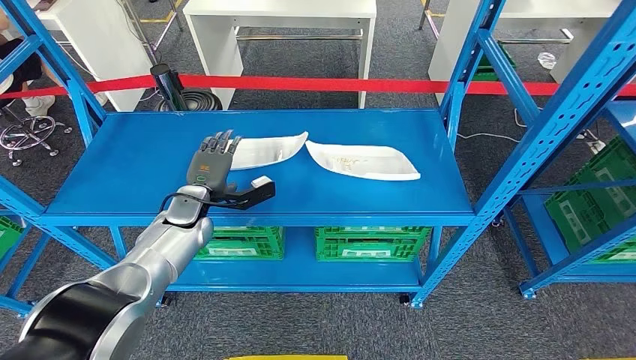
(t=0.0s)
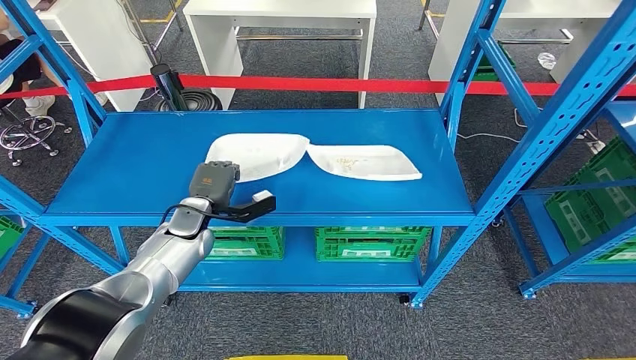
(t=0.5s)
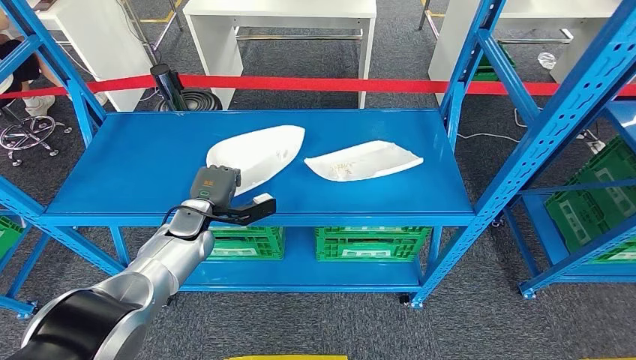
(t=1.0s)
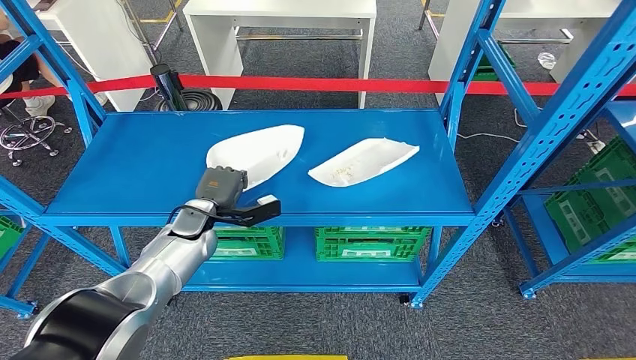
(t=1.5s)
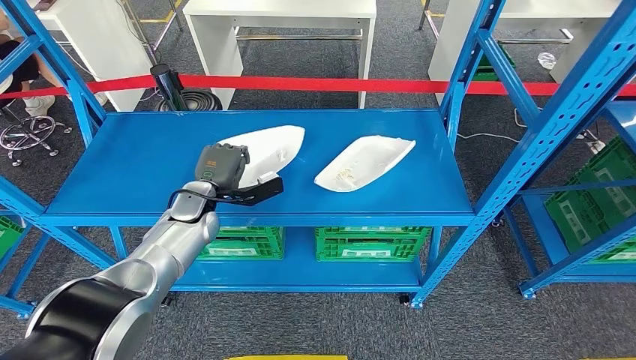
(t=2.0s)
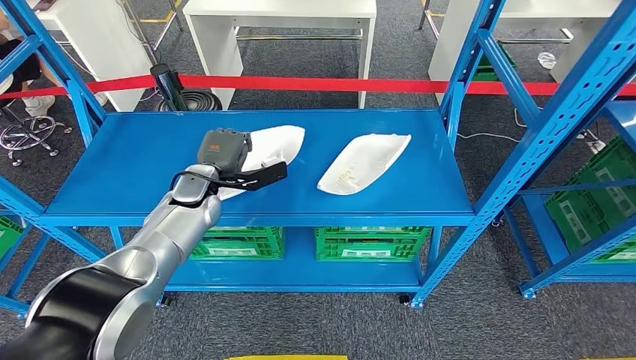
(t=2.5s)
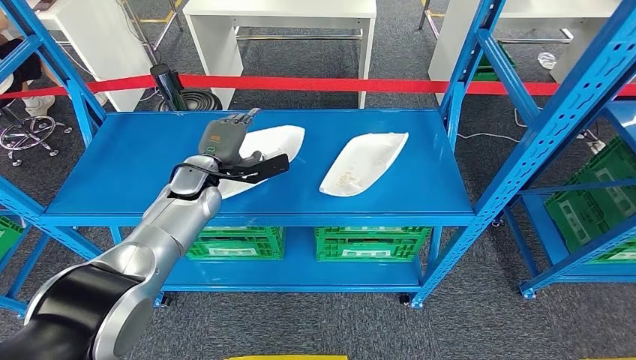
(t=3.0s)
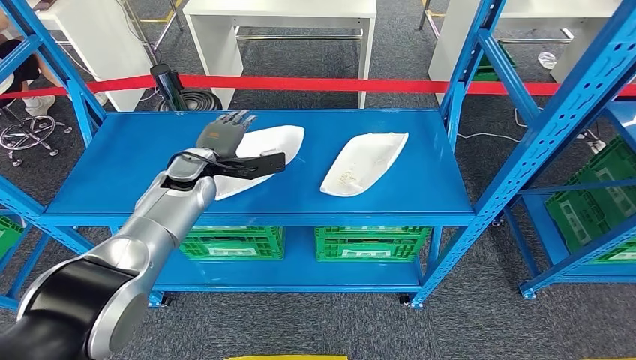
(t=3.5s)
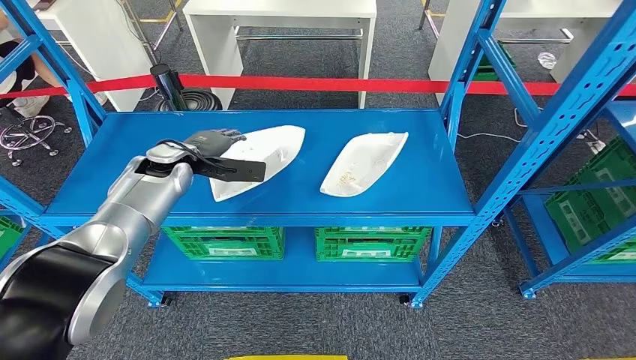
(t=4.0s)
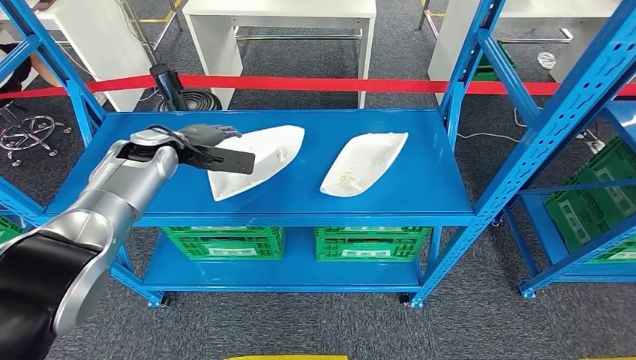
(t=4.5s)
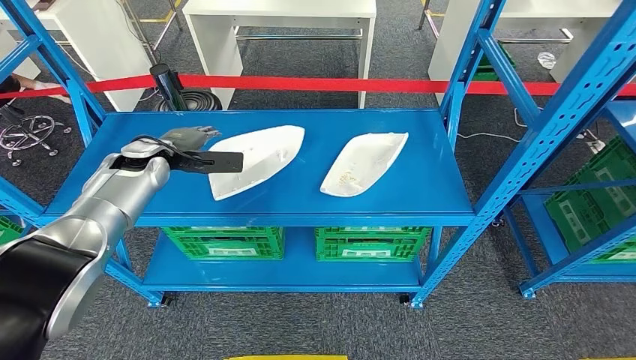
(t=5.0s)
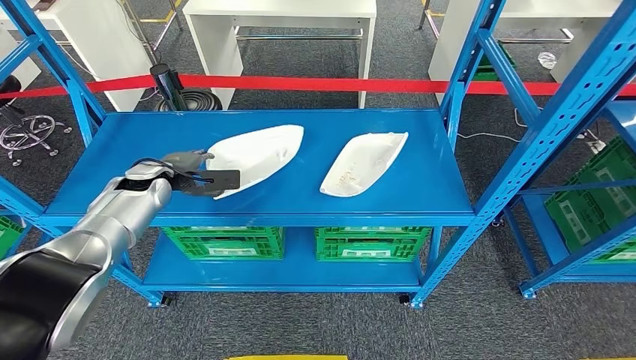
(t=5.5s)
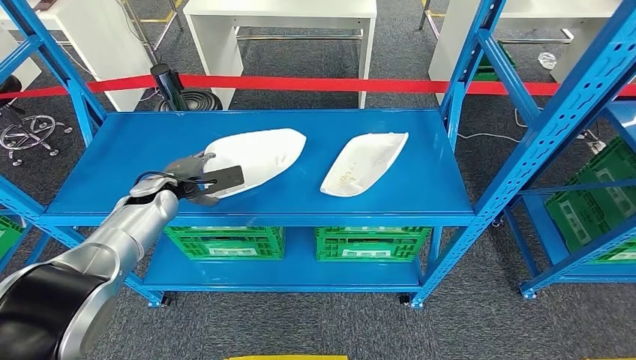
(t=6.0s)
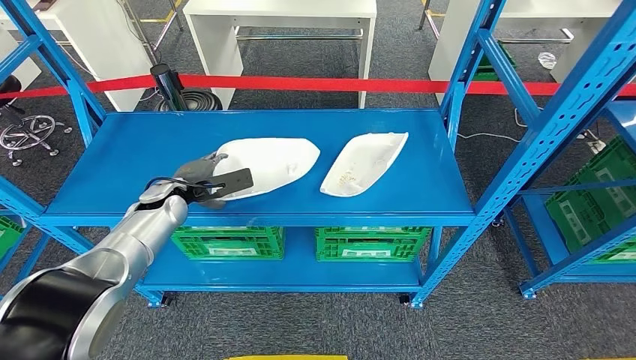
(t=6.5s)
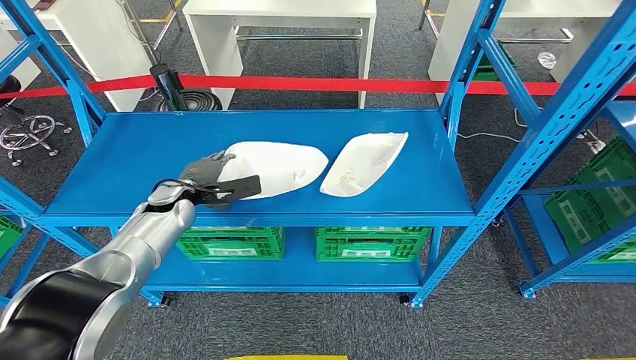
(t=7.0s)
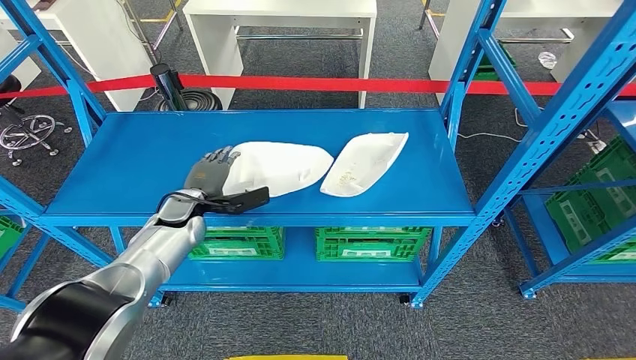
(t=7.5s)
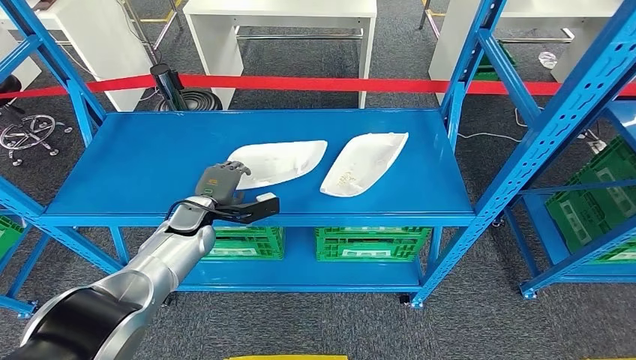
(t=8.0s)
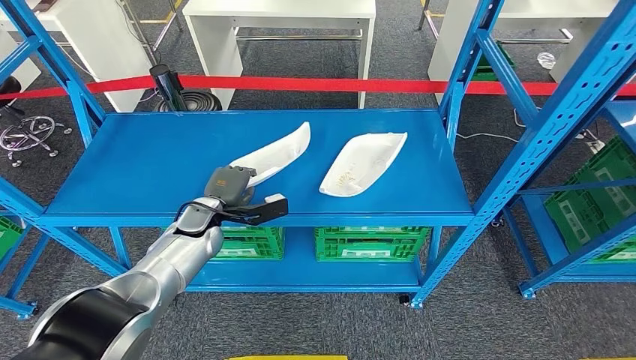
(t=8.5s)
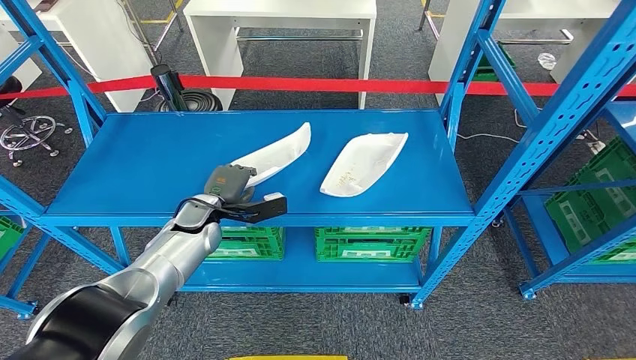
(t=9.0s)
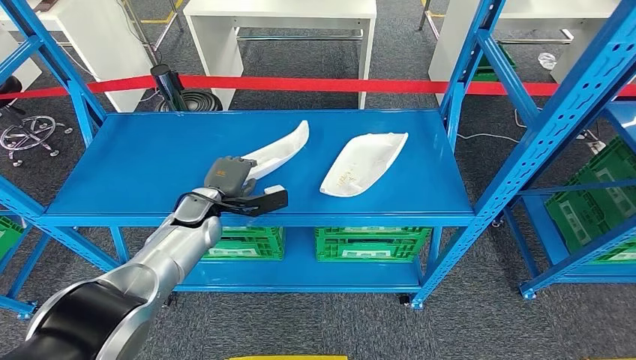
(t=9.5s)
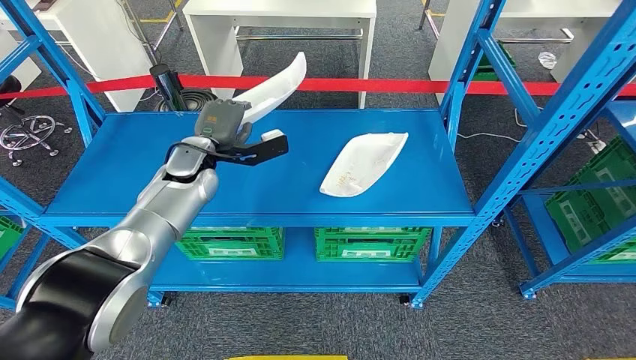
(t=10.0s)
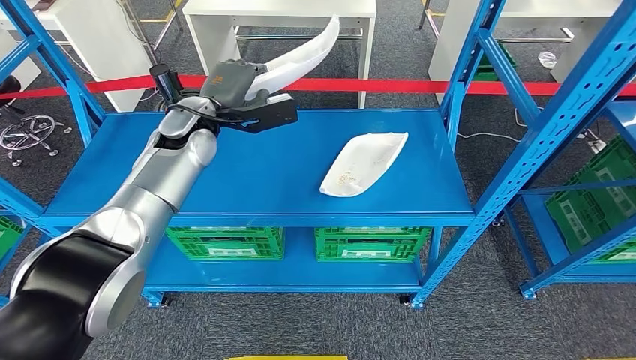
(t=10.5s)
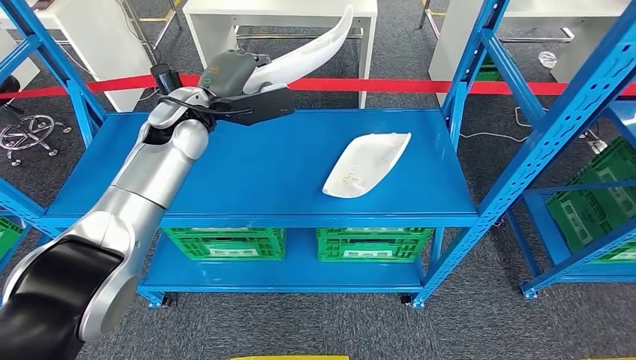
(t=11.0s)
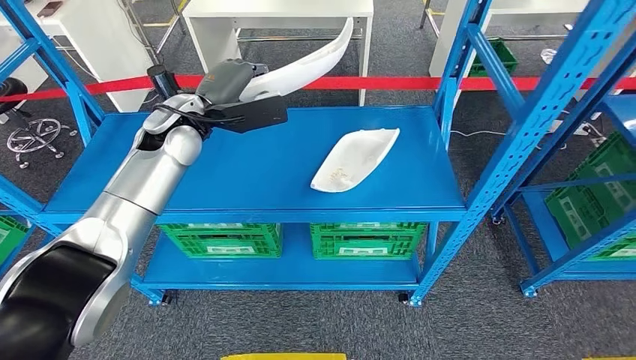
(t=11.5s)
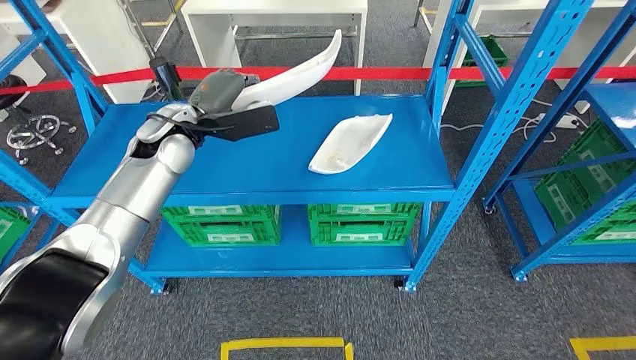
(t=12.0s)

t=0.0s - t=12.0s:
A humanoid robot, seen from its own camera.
Step, t=0.0s - t=11.5s: Pick up the small parts from the shelf.
t=0.0s - t=2.0s: The hands stay close to where they were, moving slightly.
t=2.0s - t=4.0s: The left hand moves upward, approximately 10 cm.
t=4.0s - t=6.0s: The left hand is displaced downward by approximately 5 cm.
t=6.0s - t=8.0s: The left hand goes about 10 cm to the right.
t=8.0s - t=10.0s: The left hand travels upward and forward by some 15 cm.

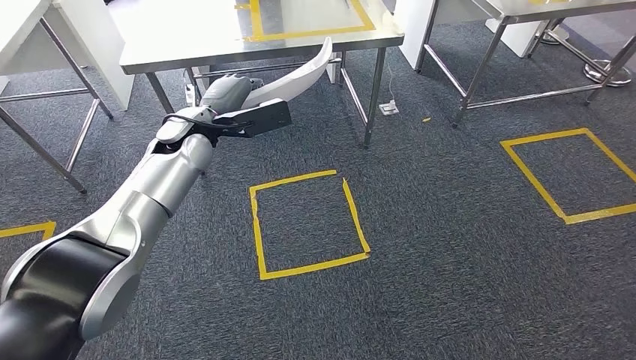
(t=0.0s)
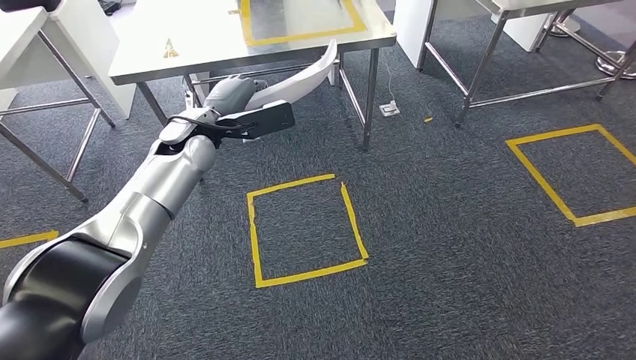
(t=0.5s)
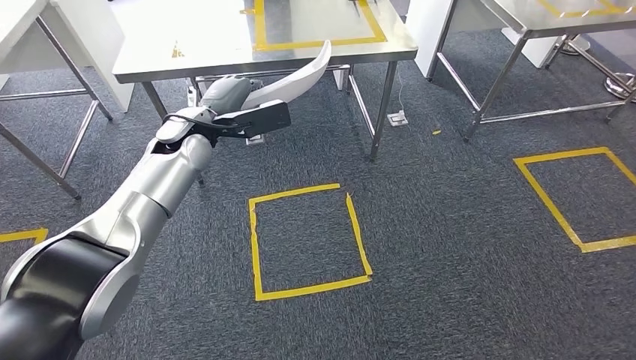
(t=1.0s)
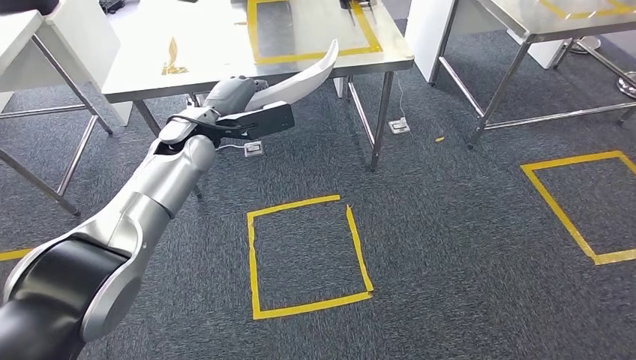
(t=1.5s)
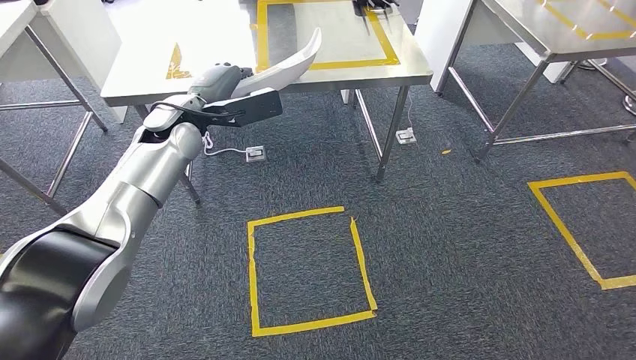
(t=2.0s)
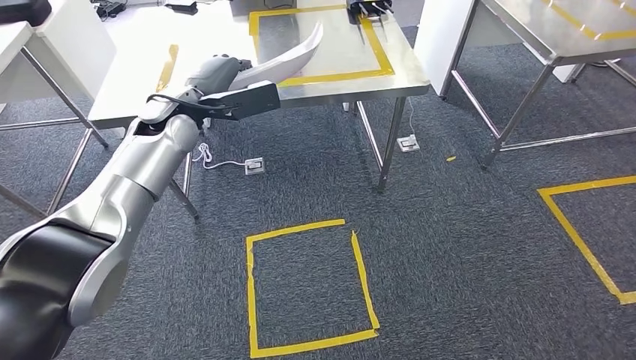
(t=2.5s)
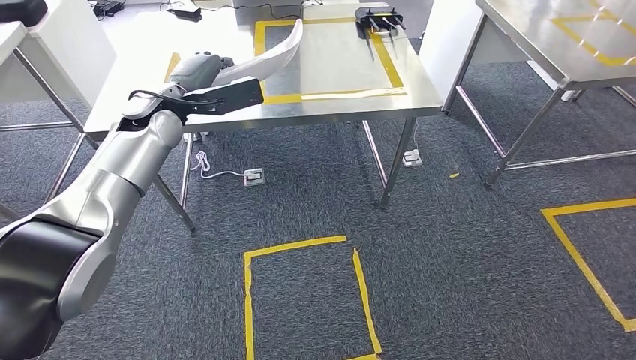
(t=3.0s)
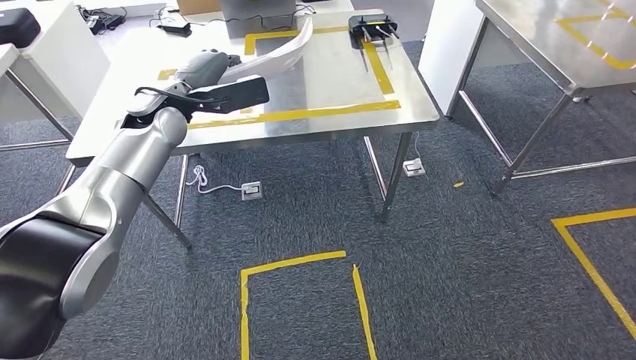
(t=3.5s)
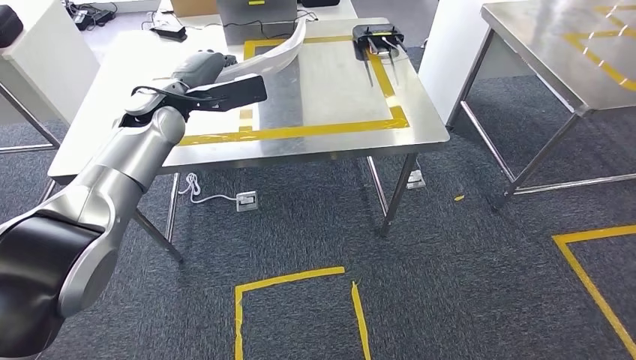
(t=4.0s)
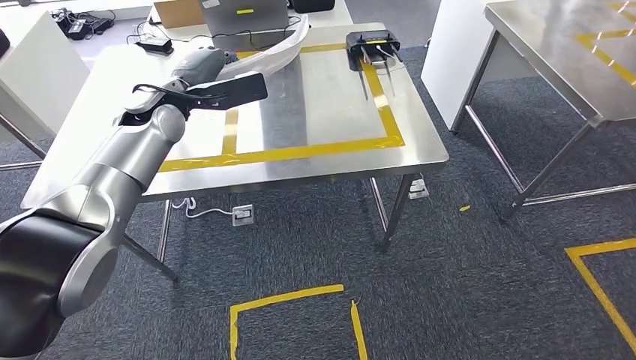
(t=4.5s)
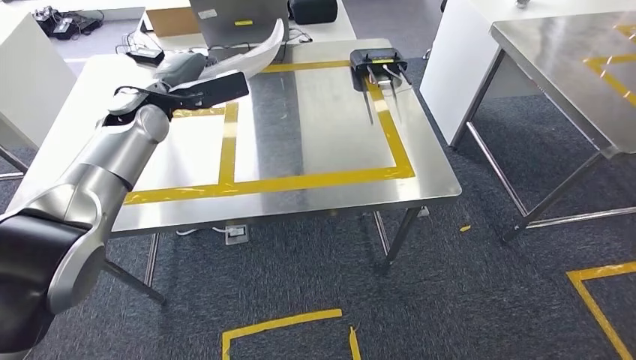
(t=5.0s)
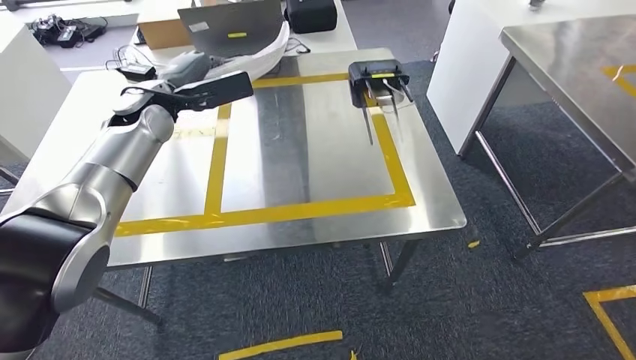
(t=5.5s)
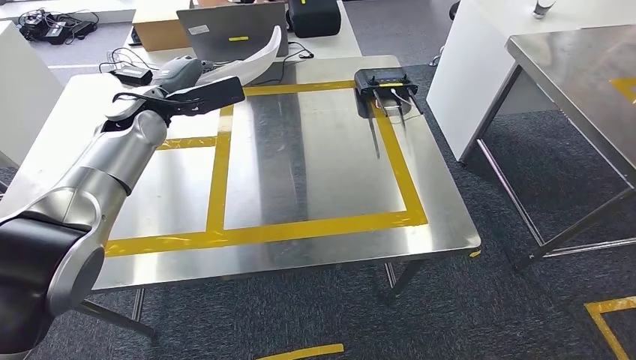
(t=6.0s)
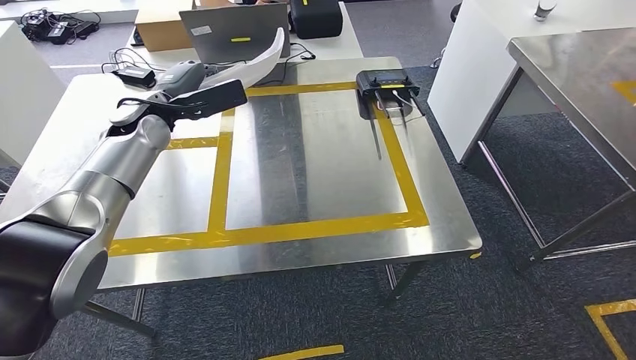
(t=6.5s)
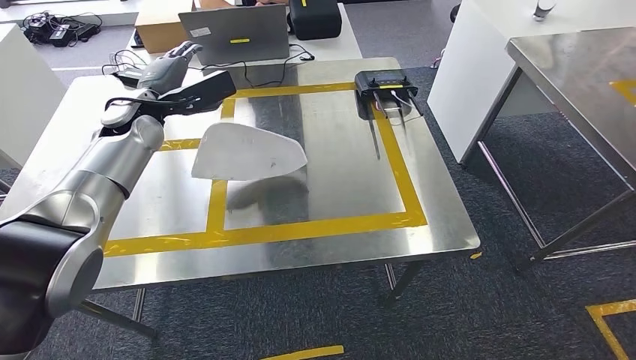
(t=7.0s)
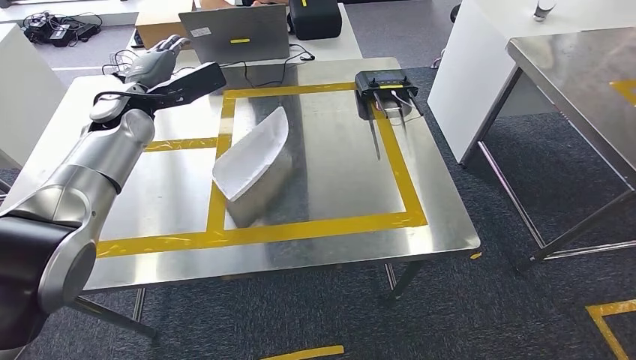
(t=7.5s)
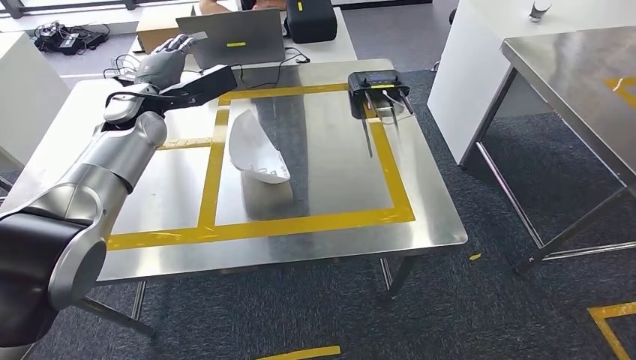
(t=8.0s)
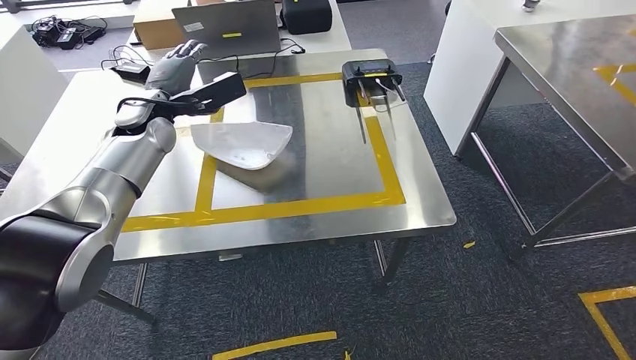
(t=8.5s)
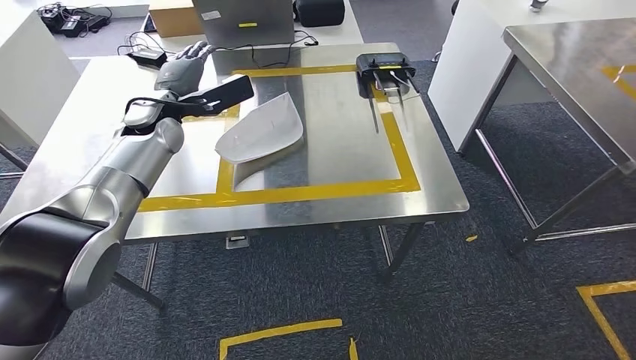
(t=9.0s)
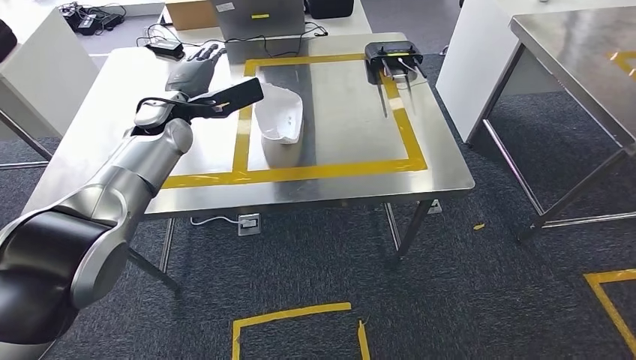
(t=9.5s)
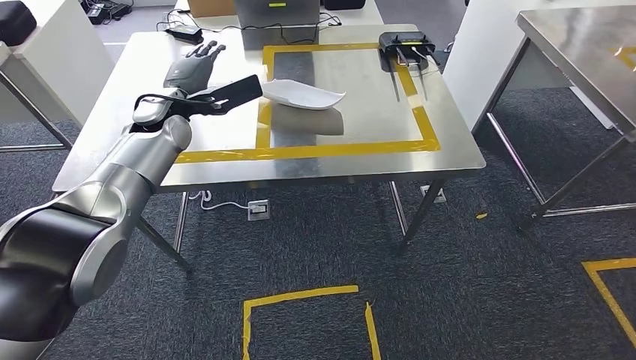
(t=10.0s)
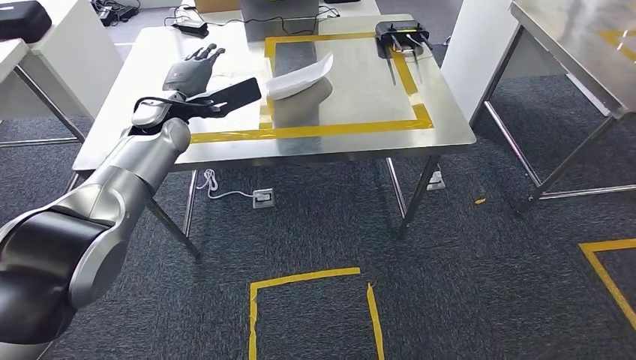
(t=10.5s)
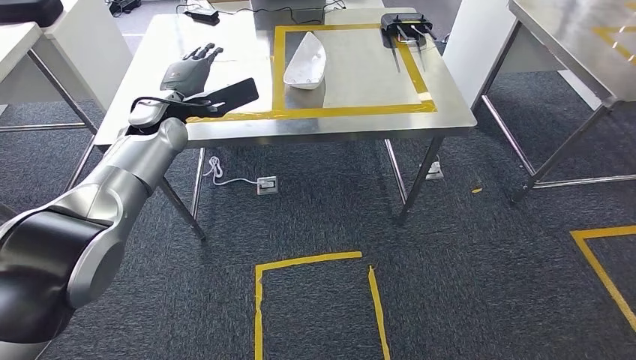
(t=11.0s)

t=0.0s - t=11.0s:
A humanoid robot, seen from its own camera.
Step, t=0.0s - t=4.5s: Move the small parts to the workbench.
Step, t=5.5s - t=7.5s: Insert the small parts into the corresponding holes on the workbench.
